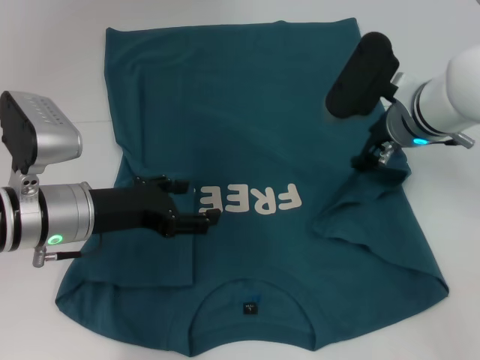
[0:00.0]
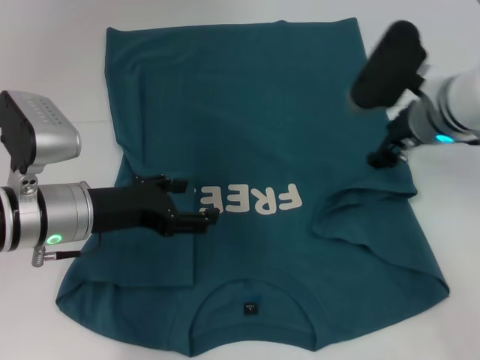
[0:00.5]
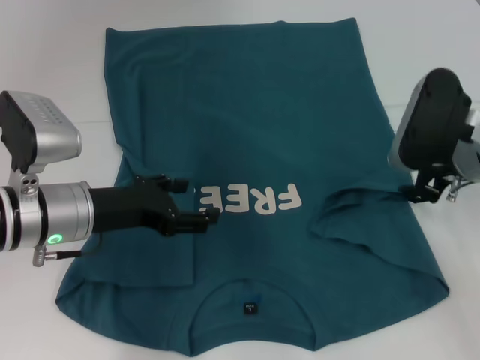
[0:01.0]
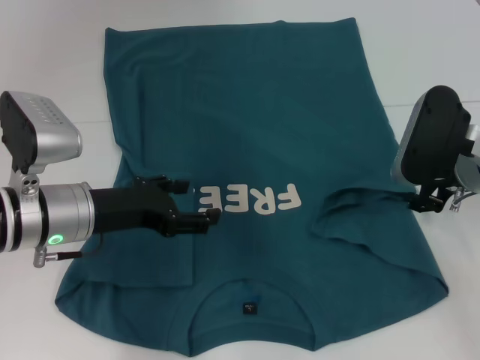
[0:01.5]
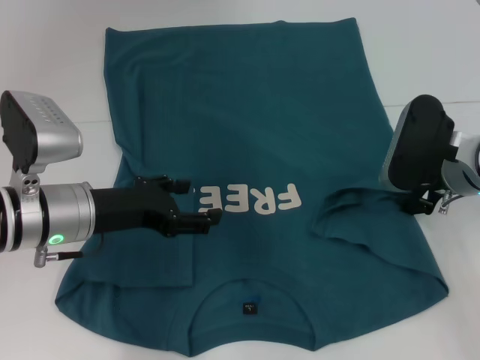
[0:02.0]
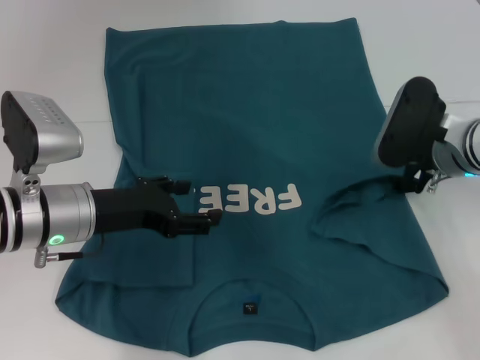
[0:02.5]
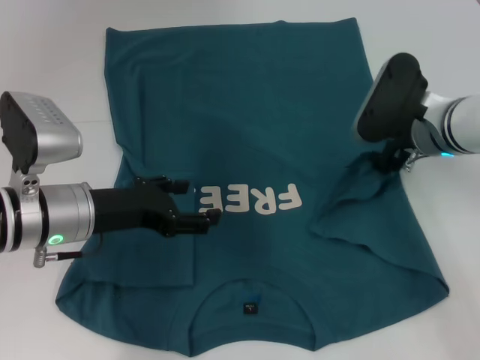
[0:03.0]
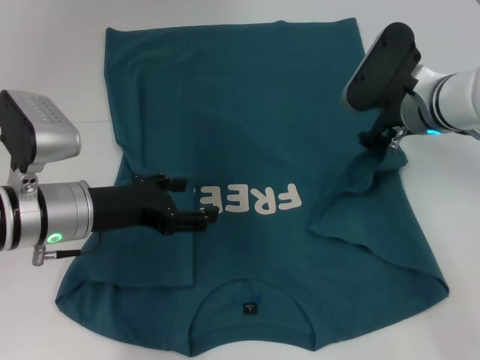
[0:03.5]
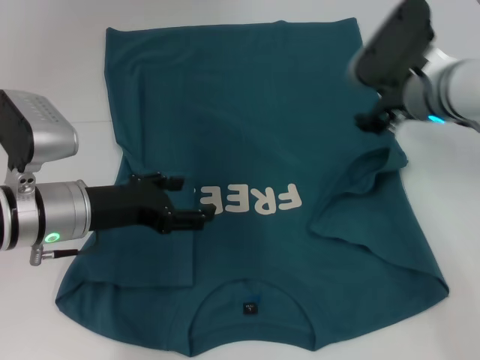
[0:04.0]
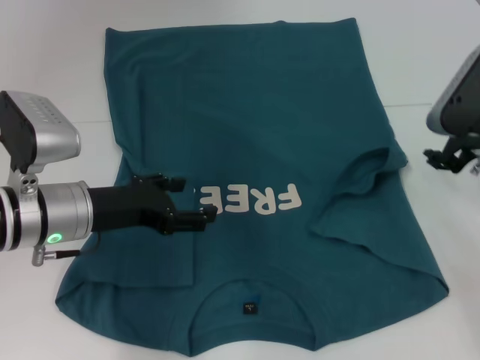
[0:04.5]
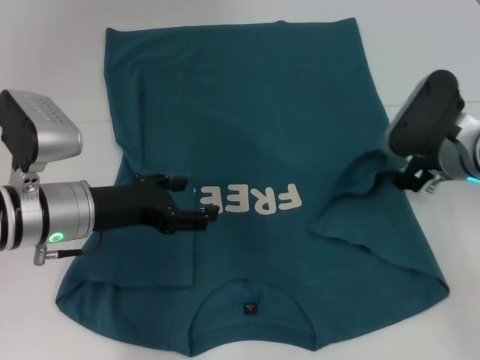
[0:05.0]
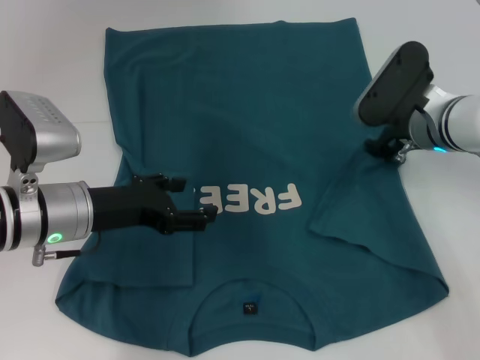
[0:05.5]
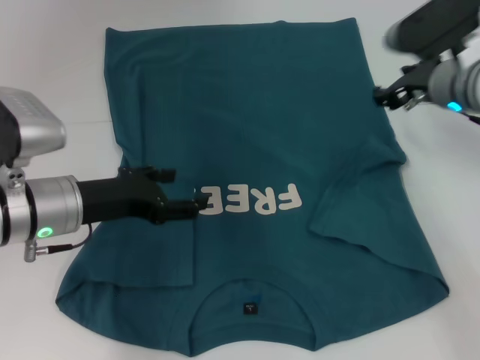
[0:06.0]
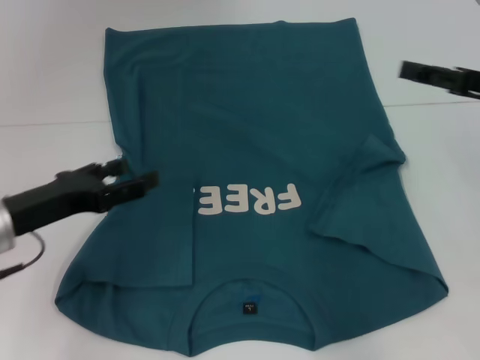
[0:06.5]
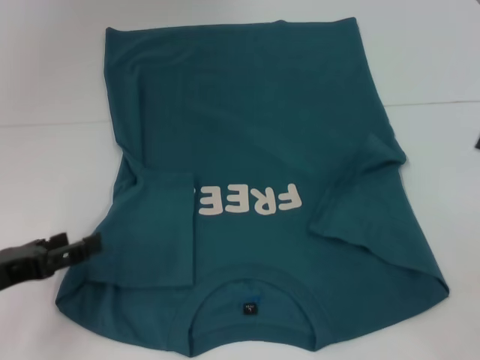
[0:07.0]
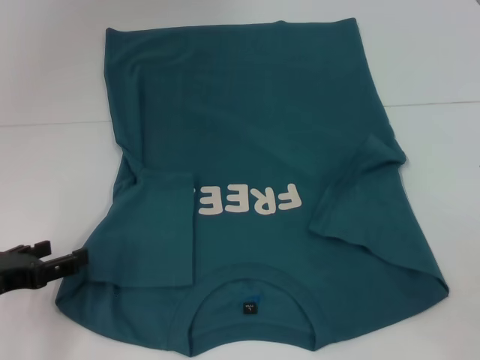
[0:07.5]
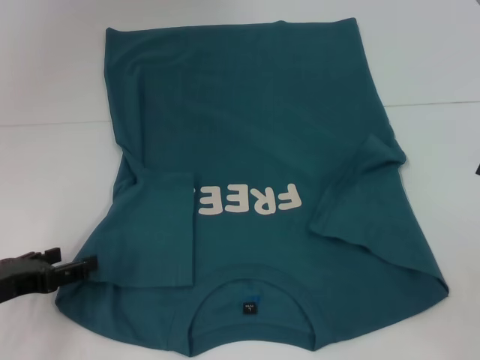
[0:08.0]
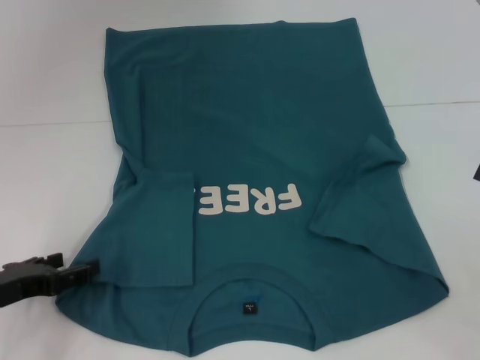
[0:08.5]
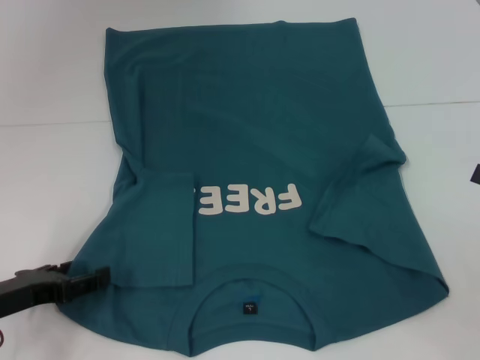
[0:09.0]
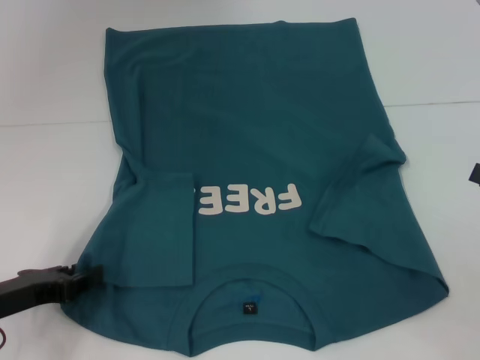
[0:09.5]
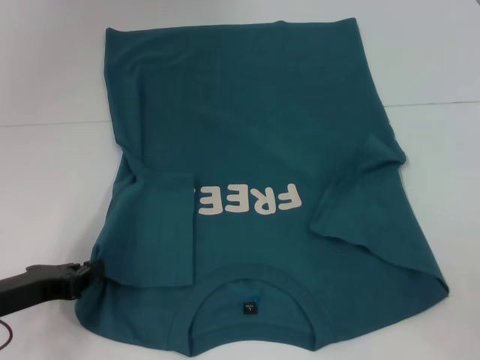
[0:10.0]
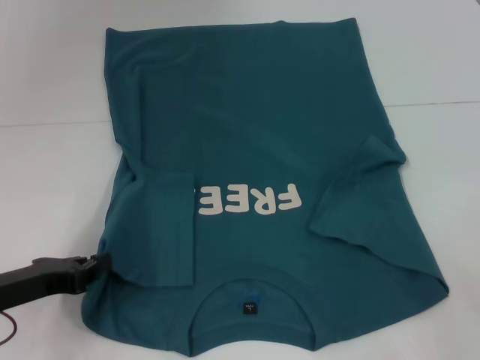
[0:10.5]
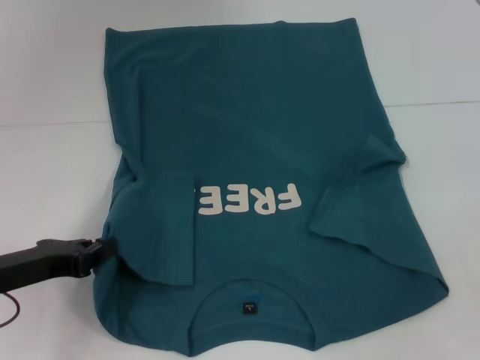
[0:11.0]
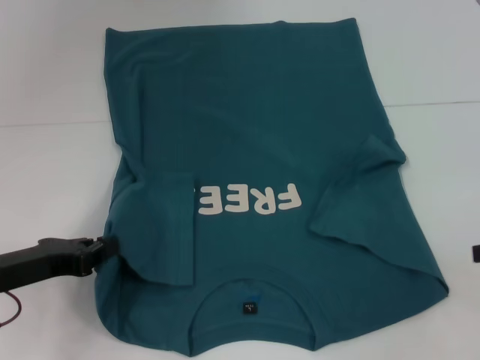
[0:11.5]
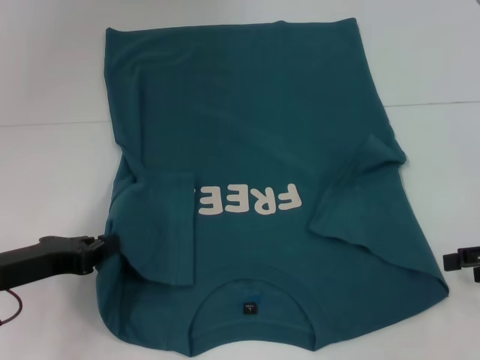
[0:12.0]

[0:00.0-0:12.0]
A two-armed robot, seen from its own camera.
Step, 0:00.0 to 0:05.5: Fold the bottom right sleeve to the right.
Step, 0:06.0 to 0:09.5: Grab the bottom left corner with your left hand.
0:00.0 to 0:02.0: The right gripper heads to the right and backward, covering roughly 5 cm.
0:02.0 to 0:04.0: The right gripper travels forward by roughly 5 cm.
0:06.0 to 0:08.0: The left gripper shifts about 15 cm to the left, backward and downward. The right gripper heads backward and to the right, covering some 25 cm.
0:08.0 to 0:10.0: The left gripper closes.
0:10.0 to 0:12.0: The right gripper heads forward, covering roughly 5 cm.

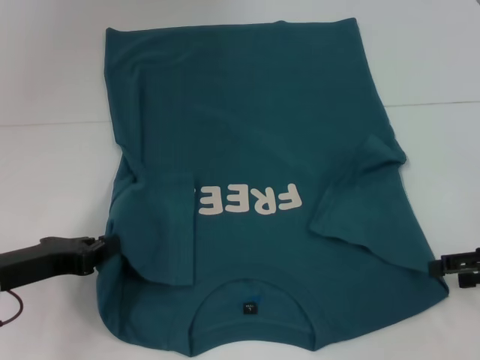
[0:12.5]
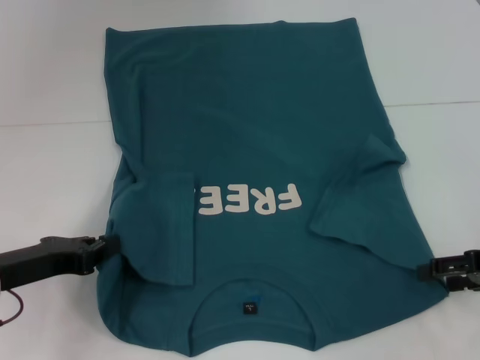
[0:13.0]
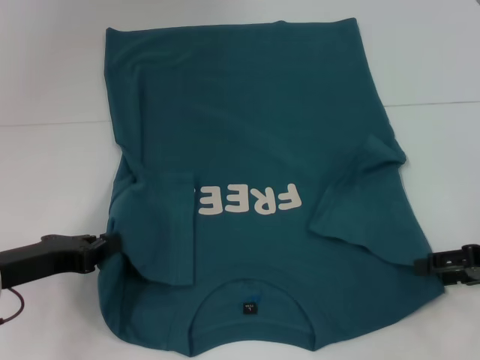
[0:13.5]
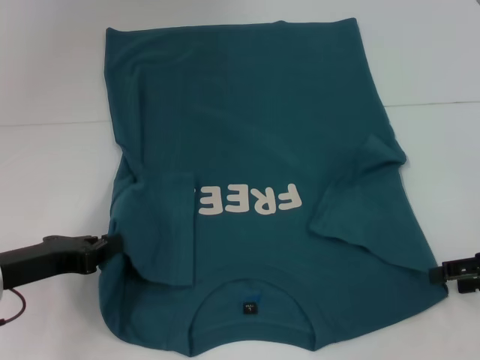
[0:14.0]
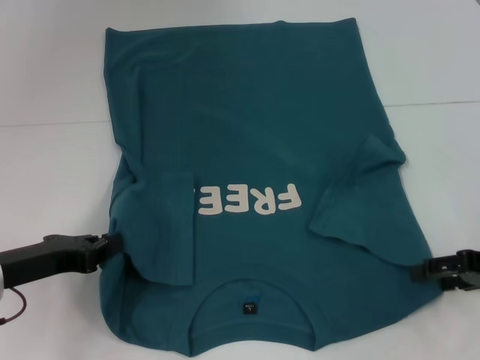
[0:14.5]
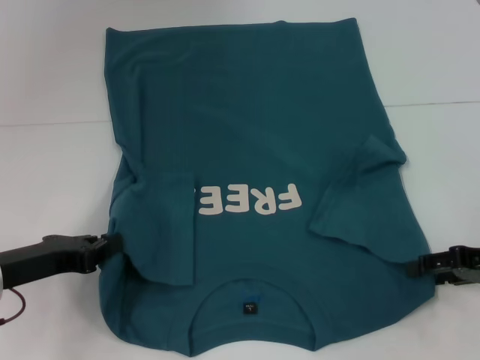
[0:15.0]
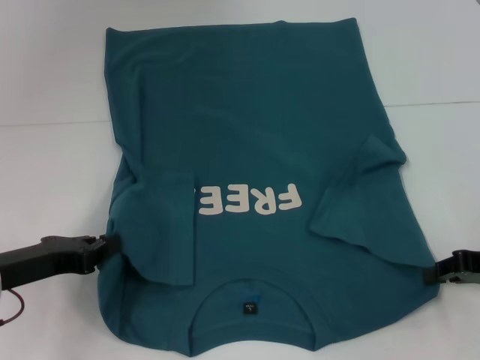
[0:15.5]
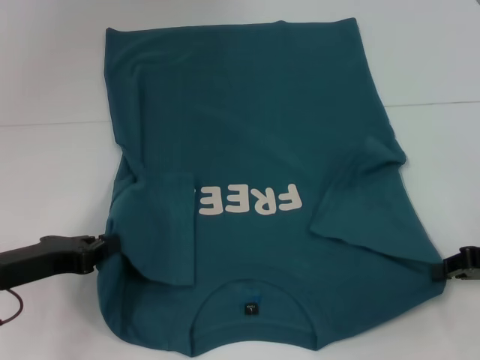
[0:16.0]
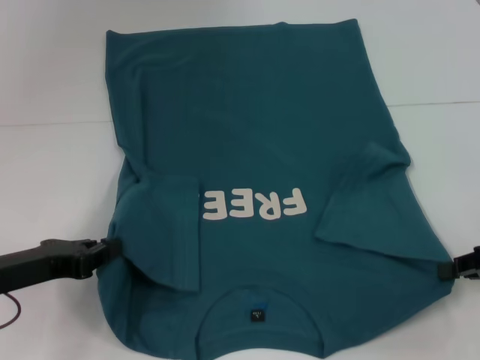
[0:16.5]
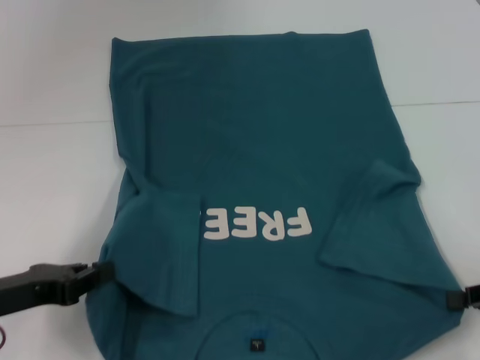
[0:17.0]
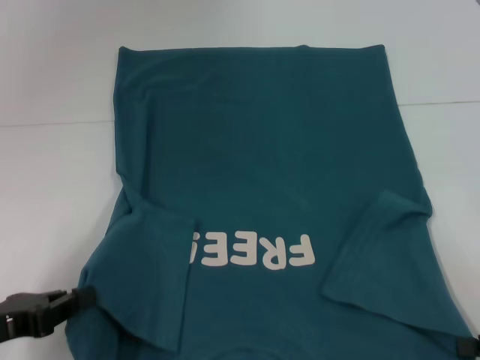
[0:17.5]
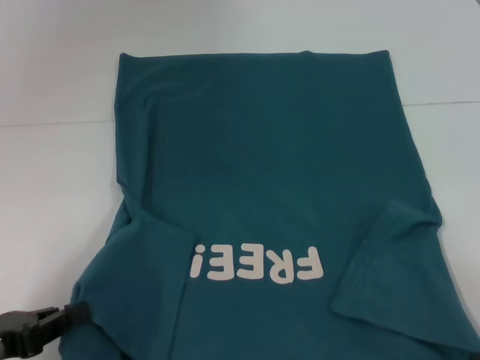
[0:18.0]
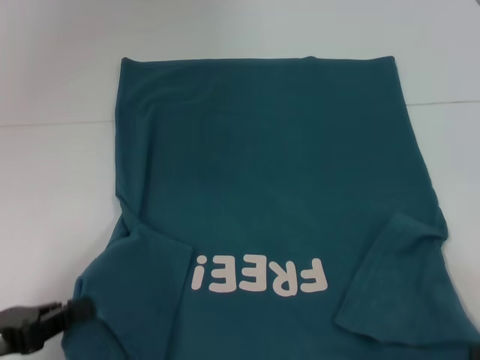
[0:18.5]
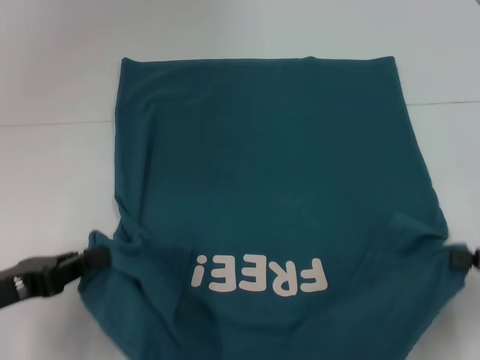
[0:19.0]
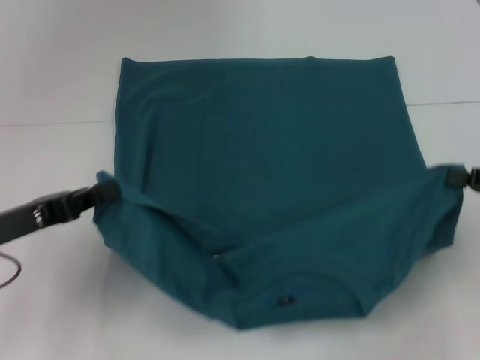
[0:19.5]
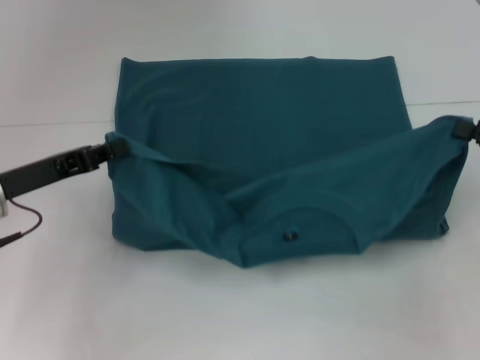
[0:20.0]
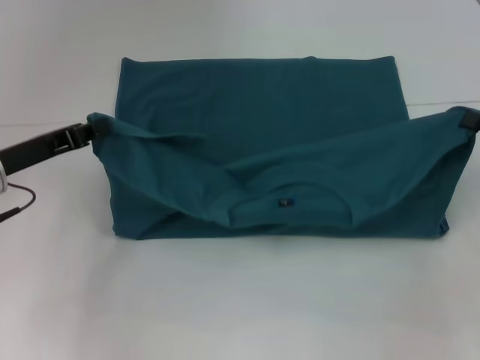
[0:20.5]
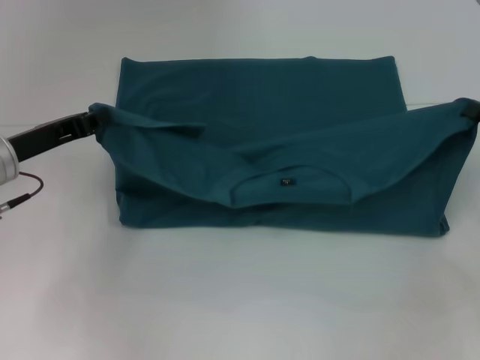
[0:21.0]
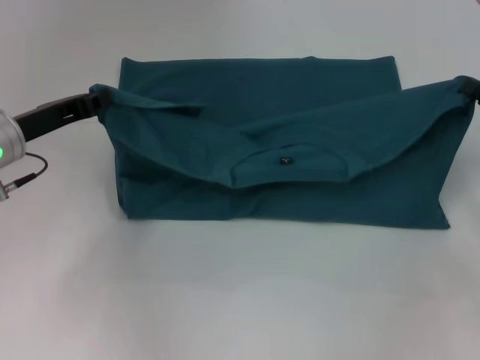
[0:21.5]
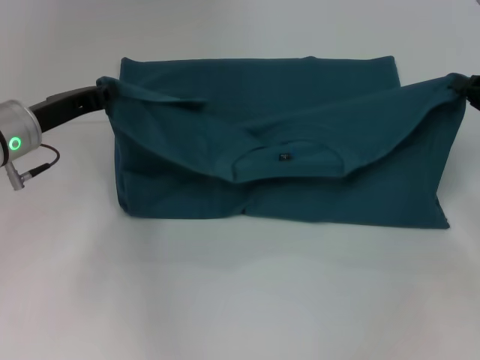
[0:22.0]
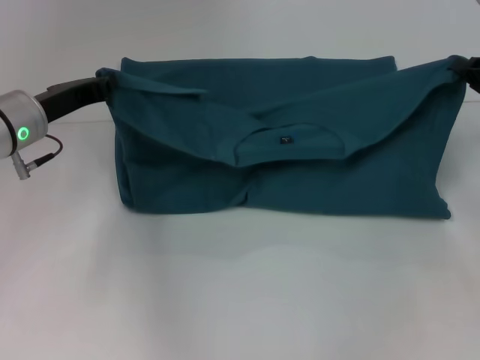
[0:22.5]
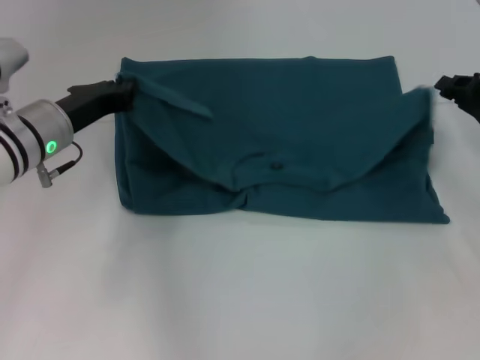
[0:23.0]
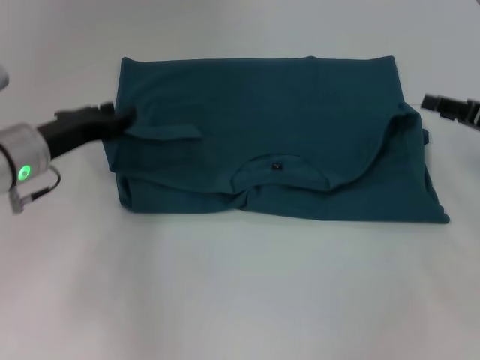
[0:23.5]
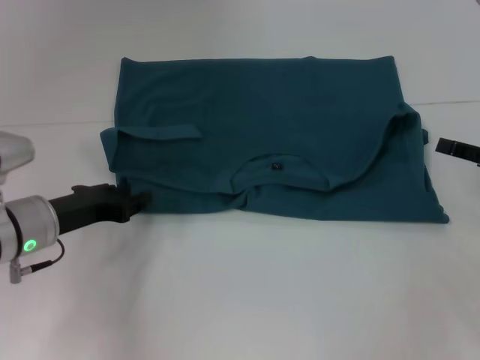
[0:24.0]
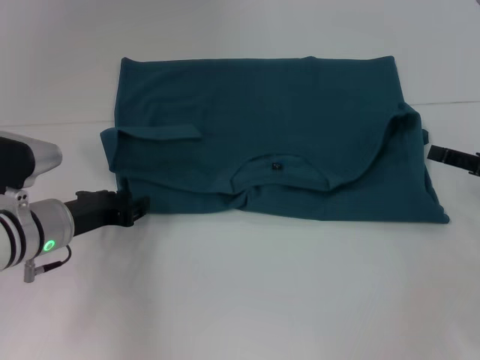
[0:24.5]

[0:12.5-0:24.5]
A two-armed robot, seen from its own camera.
Step, 0:12.5 to 0:15.5: Grab the bottom right corner with your right hand.
Step, 0:16.0 to 0:23.0: Fold the clothes to the left.
Step, 0:16.0 to 0:23.0: Fold the clothes to the right.
0:12.5 to 0:14.5: The grippers make only small movements.
0:14.5 to 0:16.5: The right gripper closes up.
0:16.5 to 0:18.5: The two grippers go some 10 cm backward.
0:18.5 to 0:20.5: The grippers both shift forward by roughly 15 cm.
0:20.5 to 0:22.5: Both grippers travel together forward, approximately 5 cm.
0:22.5 to 0:24.5: The left gripper is displaced downward and backward by some 10 cm, and opens. The right gripper is displaced backward by about 5 cm, and opens its fingers.

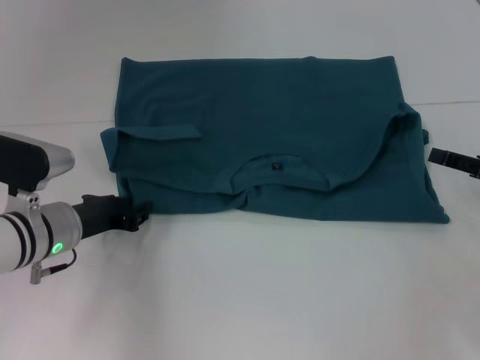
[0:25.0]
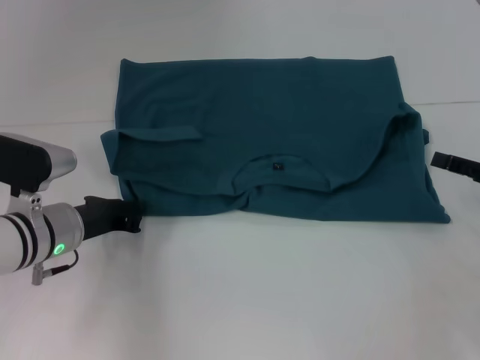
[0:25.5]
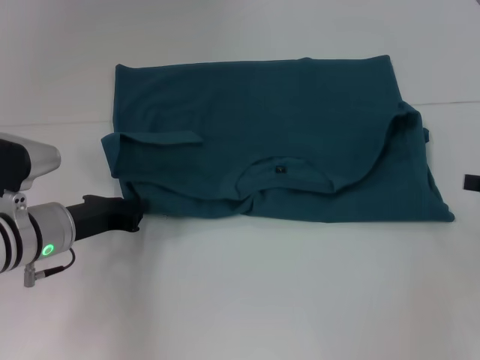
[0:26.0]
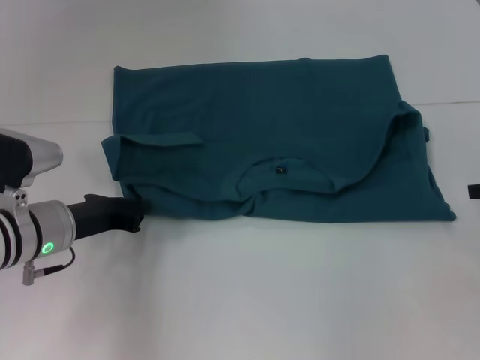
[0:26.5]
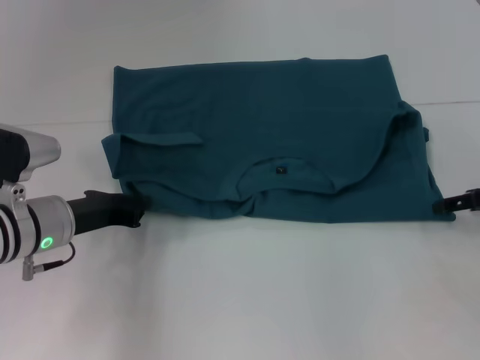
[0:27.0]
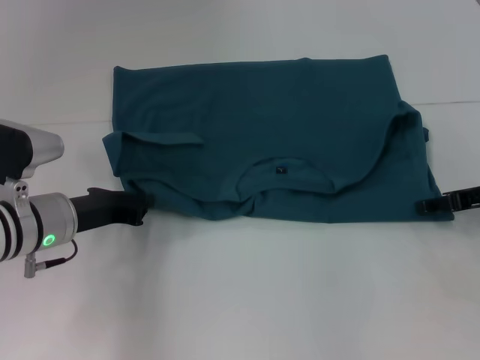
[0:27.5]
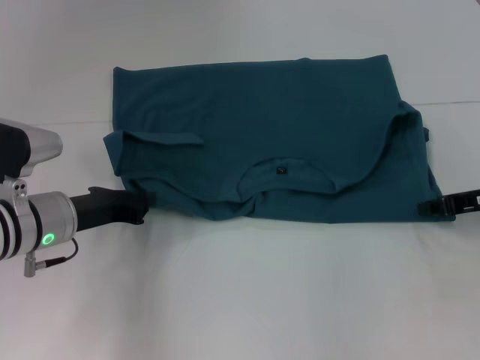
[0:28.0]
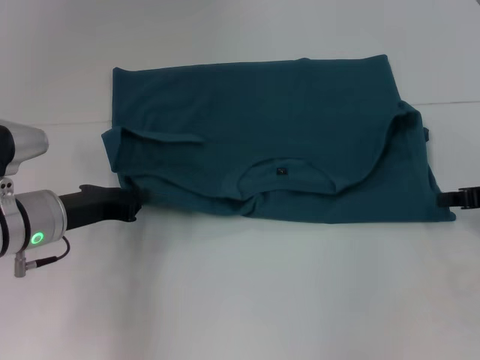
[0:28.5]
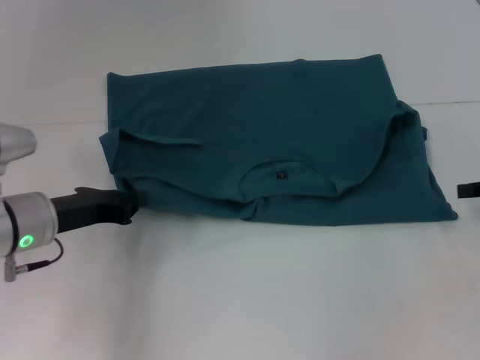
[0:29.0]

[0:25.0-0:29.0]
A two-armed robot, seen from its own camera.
0:25.0 to 0:27.0: The right gripper changes place by about 5 cm, while the left gripper closes up.
0:27.0 to 0:29.0: The right gripper closes.
